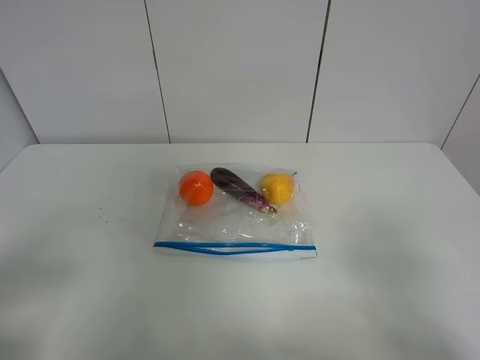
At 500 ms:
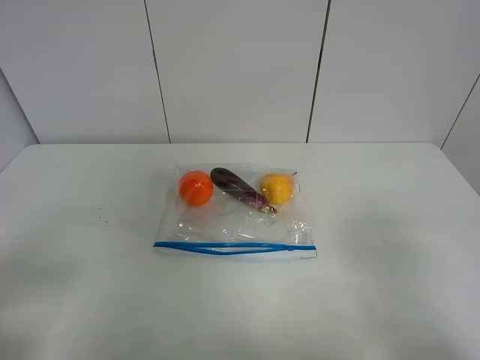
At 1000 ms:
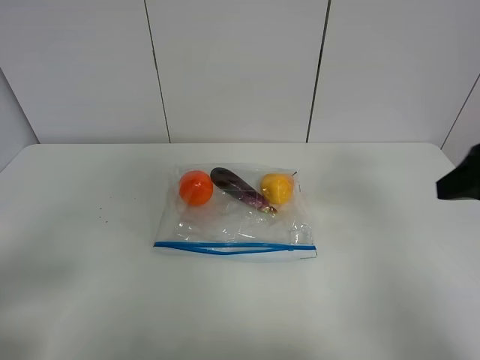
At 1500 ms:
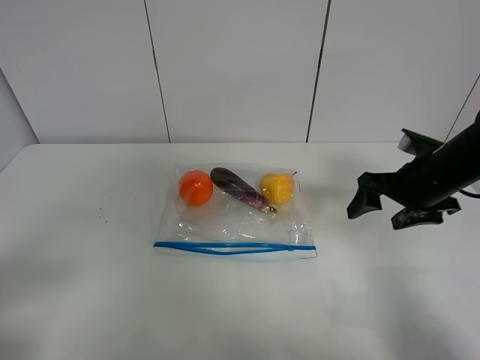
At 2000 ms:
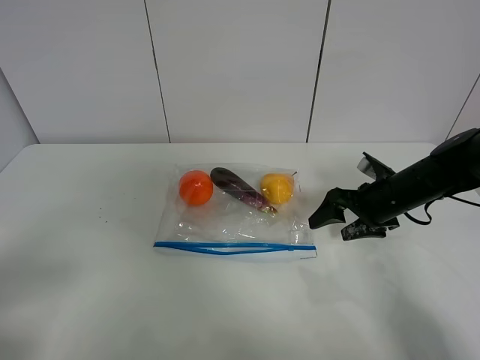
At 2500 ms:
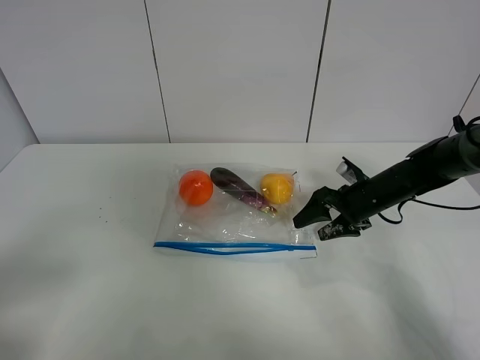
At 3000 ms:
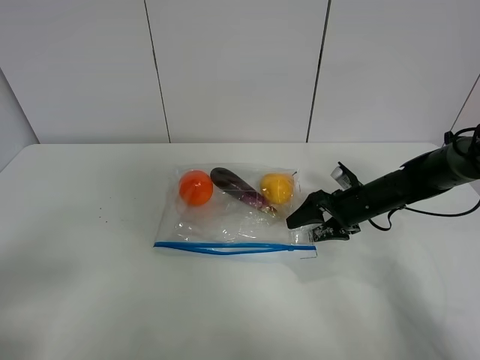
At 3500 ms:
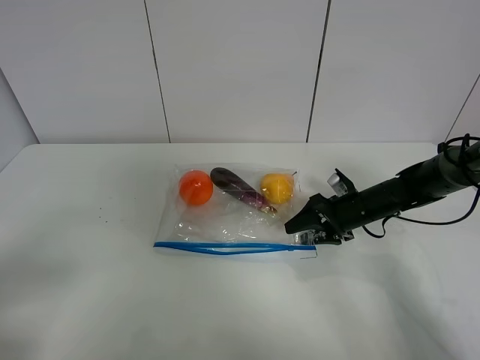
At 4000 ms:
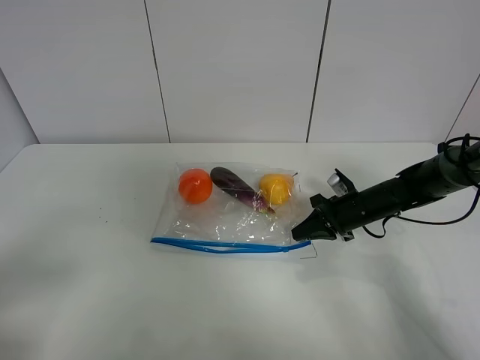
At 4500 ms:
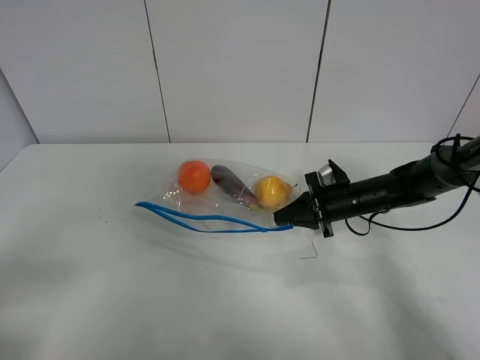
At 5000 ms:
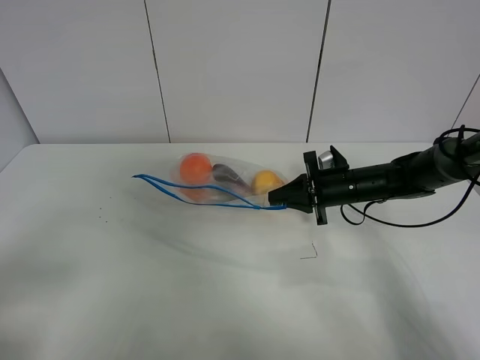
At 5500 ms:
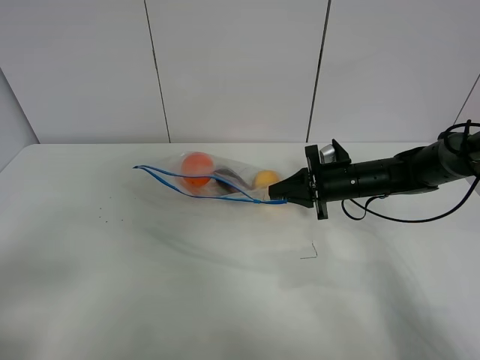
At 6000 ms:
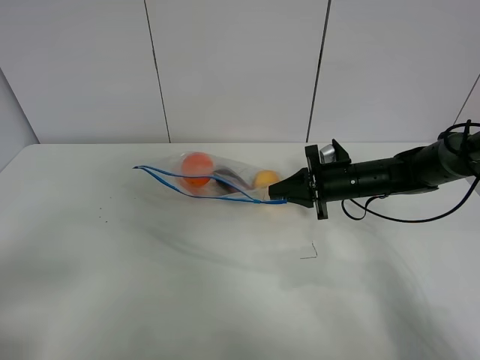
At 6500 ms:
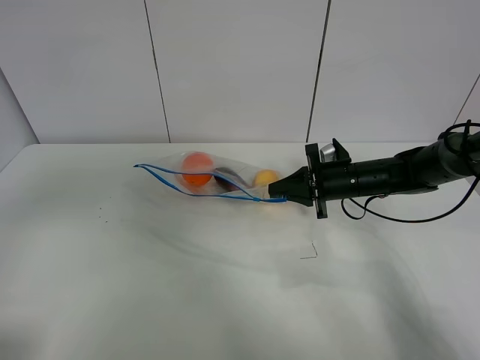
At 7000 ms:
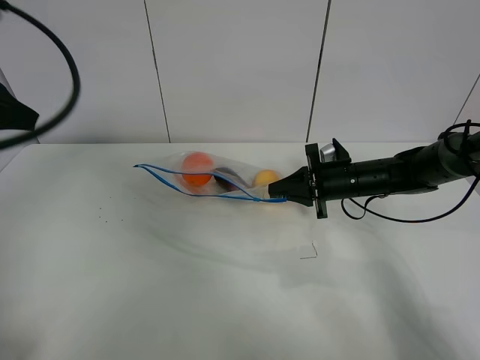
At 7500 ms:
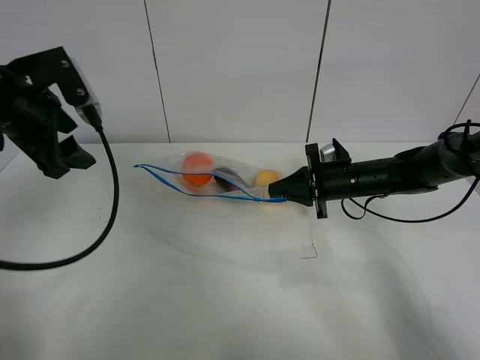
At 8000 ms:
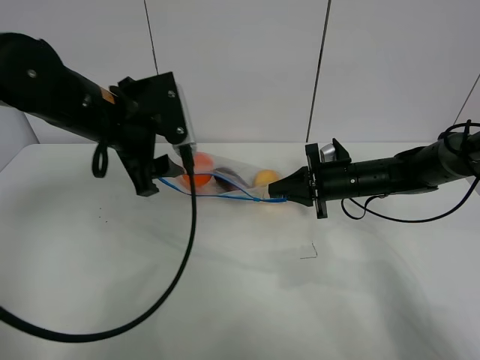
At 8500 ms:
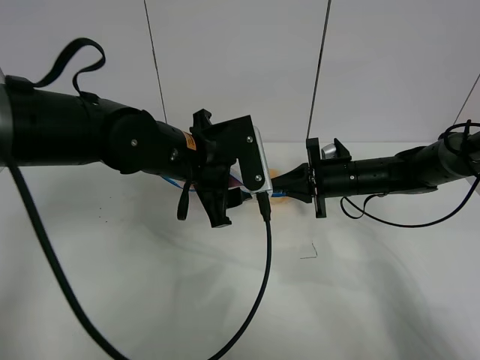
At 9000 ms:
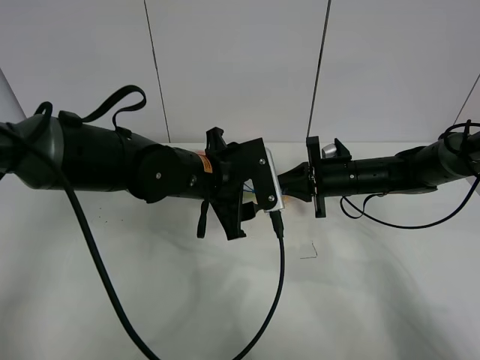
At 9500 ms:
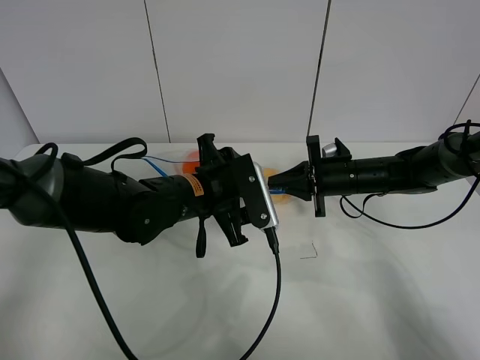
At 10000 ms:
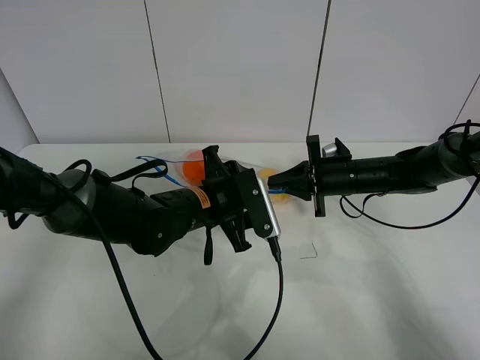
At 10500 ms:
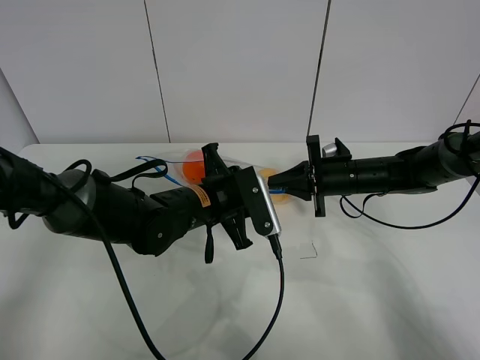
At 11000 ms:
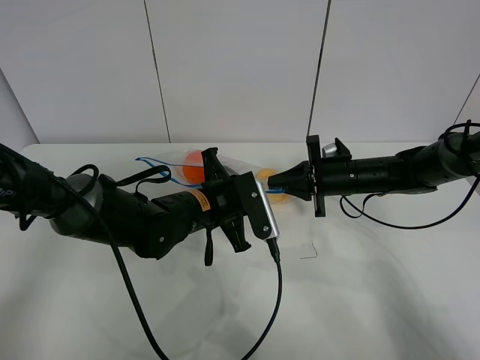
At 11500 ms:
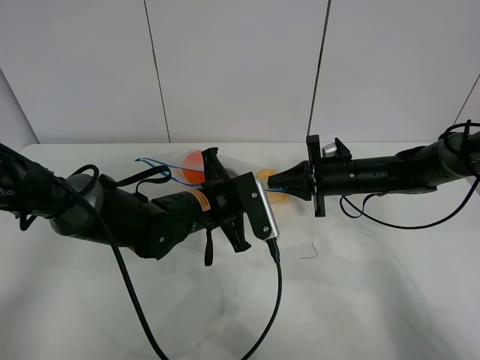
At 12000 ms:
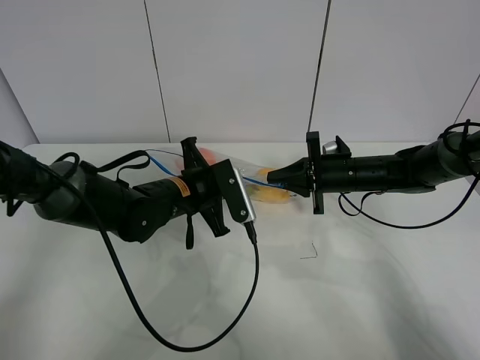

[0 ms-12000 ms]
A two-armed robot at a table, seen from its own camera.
Step, 0 ms to 4000 ms: Grasp the fruit bag with right gripper.
Step, 4500 ms to 5500 ms: Lift the fruit bag with your right gripper.
0 ms to 2000 ms: The right gripper goes approximately 35 cm forward and downward.
2000 ms to 4000 ms: The right gripper shifts about 5 cm downward, and closes its fingers.
4000 ms to 6000 ms: The right gripper is displaced upward by about 5 cm.
6000 ms to 8000 ms: The left gripper shifts some 35 cm forward and to the right.
8000 ms to 10000 ms: The left gripper goes about 15 cm downward and to the right.
10000 ms to 12000 ms: The left gripper shifts by some 5 cm, and closes.

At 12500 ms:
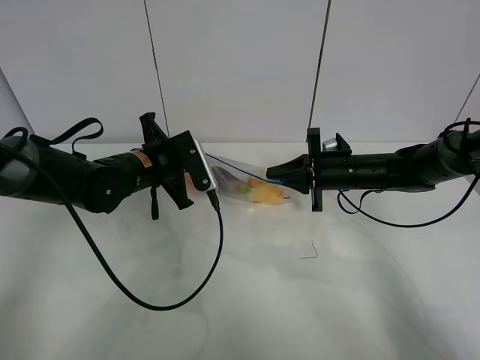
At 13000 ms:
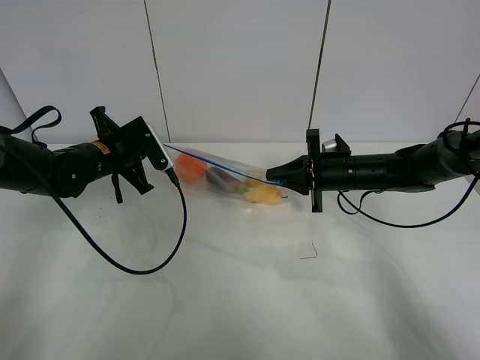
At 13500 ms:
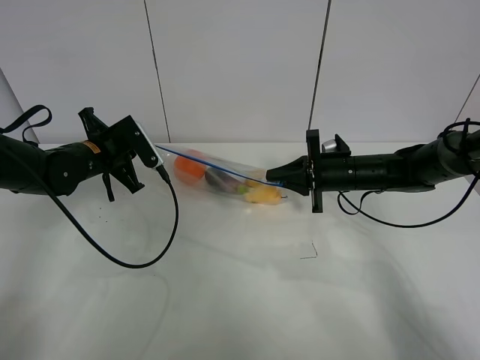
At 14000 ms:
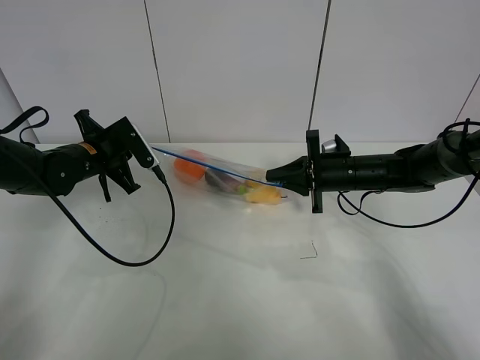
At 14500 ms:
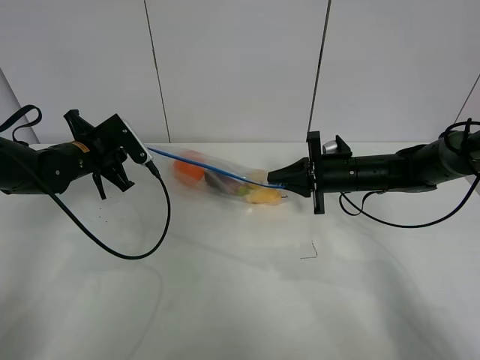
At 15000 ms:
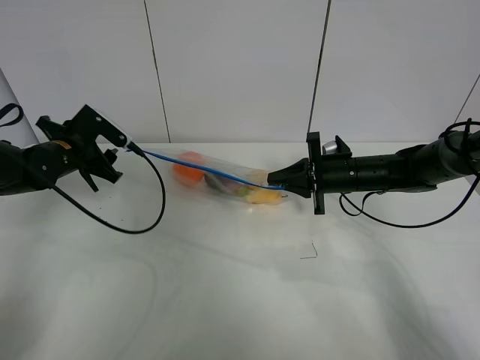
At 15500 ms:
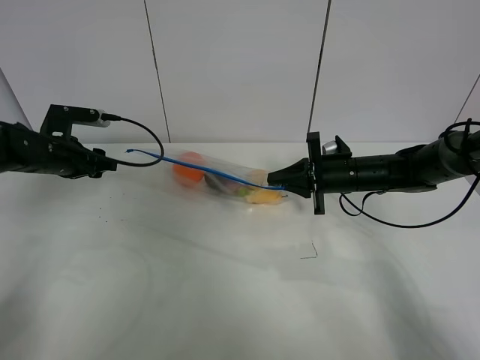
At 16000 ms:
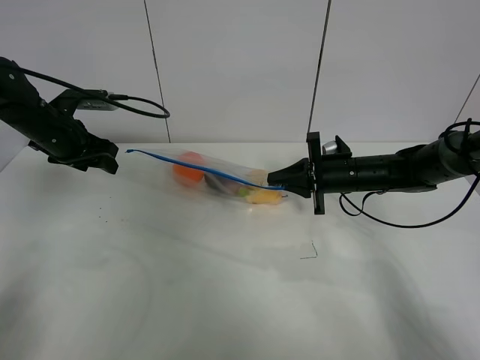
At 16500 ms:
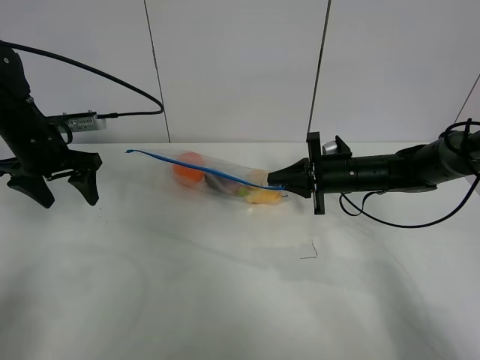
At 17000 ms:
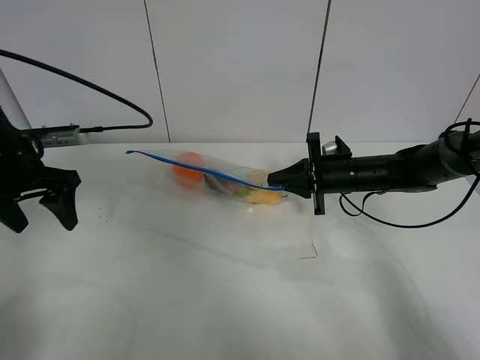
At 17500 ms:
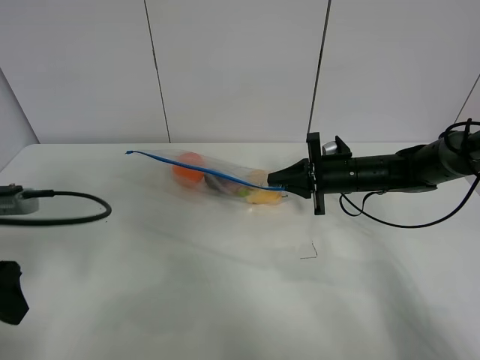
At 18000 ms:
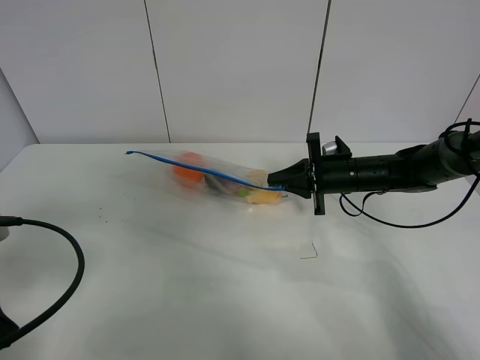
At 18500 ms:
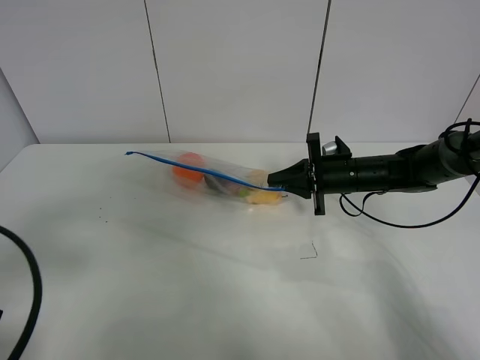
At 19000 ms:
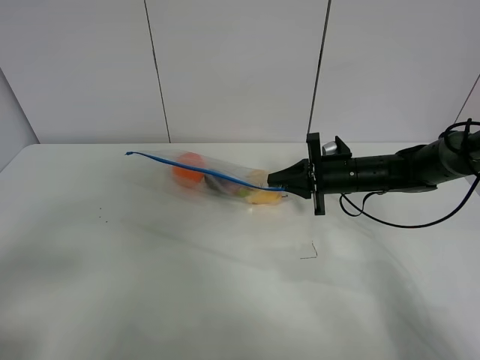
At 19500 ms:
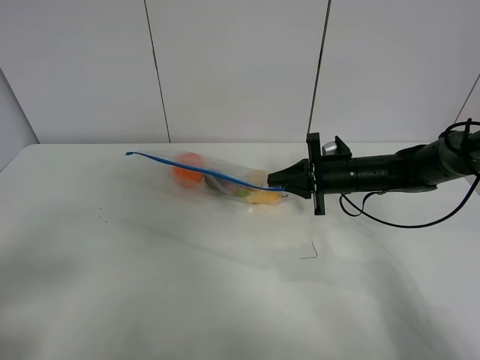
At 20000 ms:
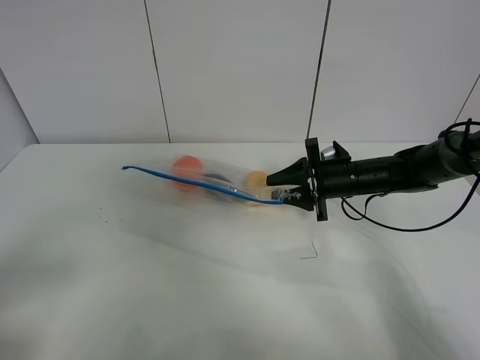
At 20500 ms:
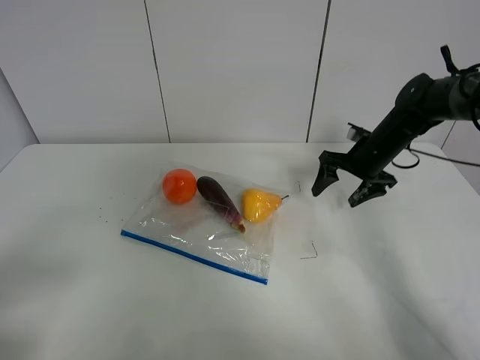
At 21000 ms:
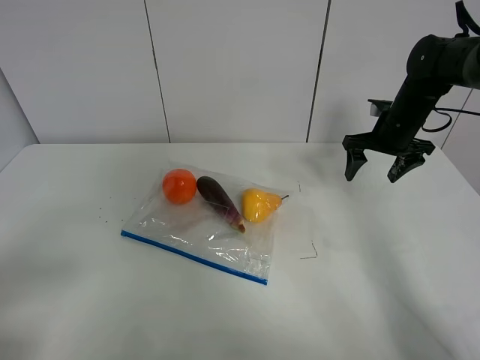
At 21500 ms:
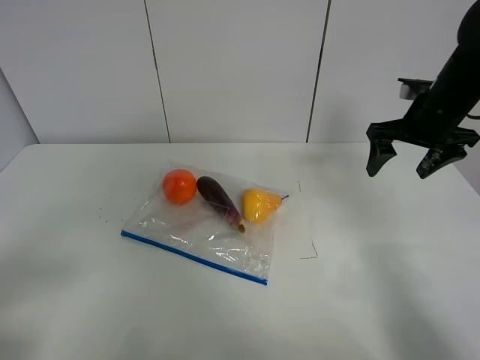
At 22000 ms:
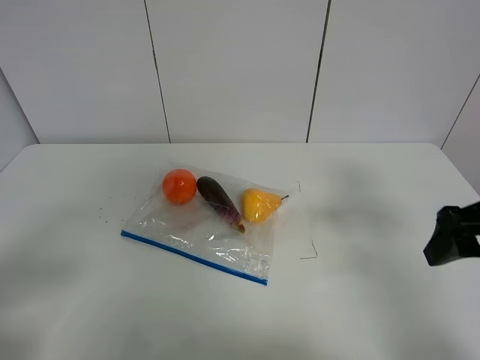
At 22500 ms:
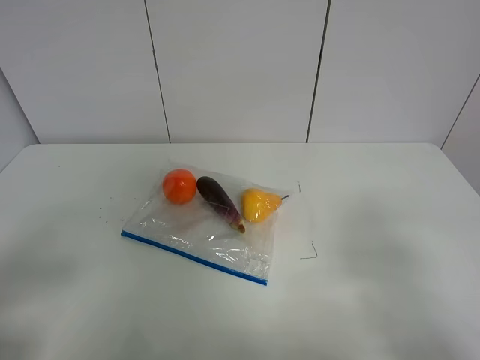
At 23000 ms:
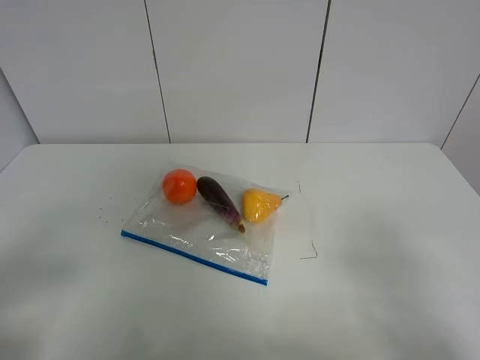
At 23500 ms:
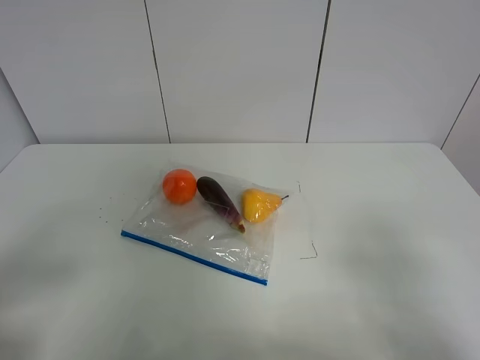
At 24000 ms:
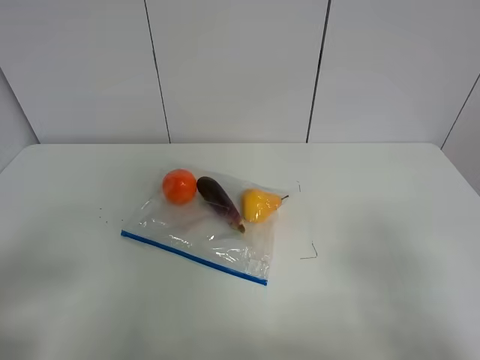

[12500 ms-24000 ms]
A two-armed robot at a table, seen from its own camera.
Step, 12500 ms to 14500 ms: Pull the fruit bag with left gripper.
12500 ms to 14500 ms: The left gripper shifts about 10 cm to the left, and opens.
14500 ms to 16500 ms: The left gripper travels to the left by roughly 5 cm, and opens up.
16500 ms to 18500 ms: The left gripper shifts about 30 cm backward.
18500 ms to 20000 ms: The left gripper heads backward, covering some 5 cm; the right gripper opens.
20000 ms to 22000 ms: The right gripper goes roughly 25 cm backward, upward and to the right, and opens.
22000 ms to 24000 ms: The right gripper moves backward, approximately 15 cm.

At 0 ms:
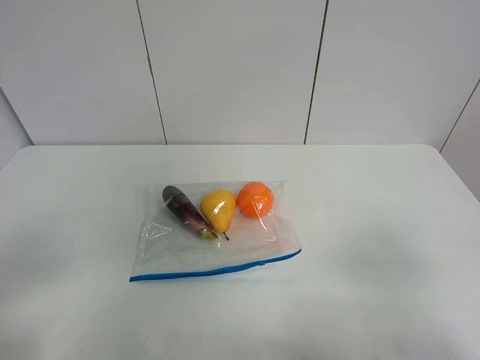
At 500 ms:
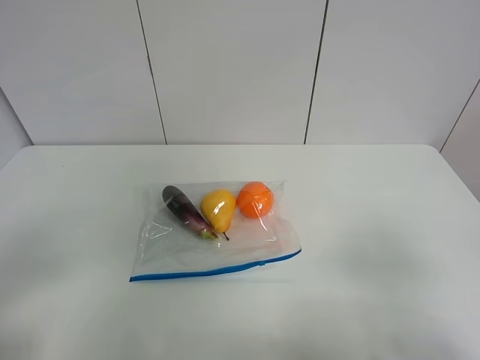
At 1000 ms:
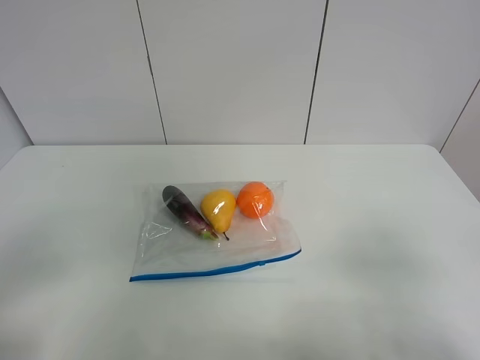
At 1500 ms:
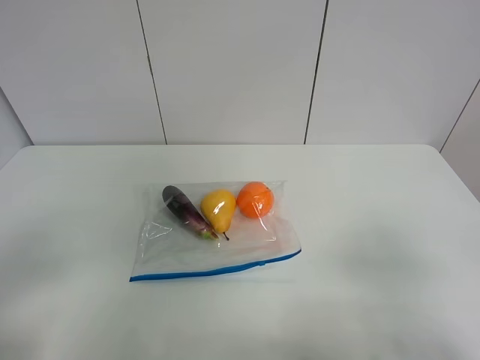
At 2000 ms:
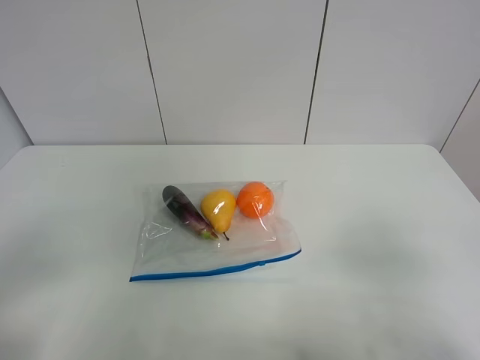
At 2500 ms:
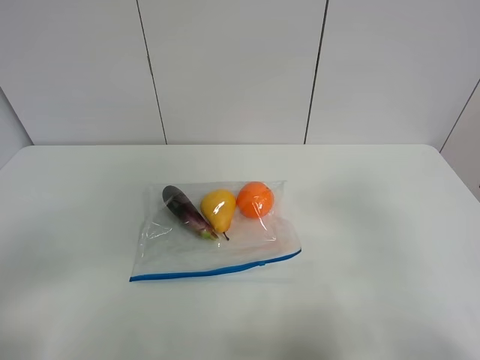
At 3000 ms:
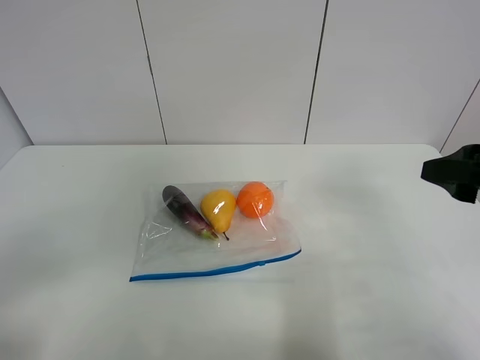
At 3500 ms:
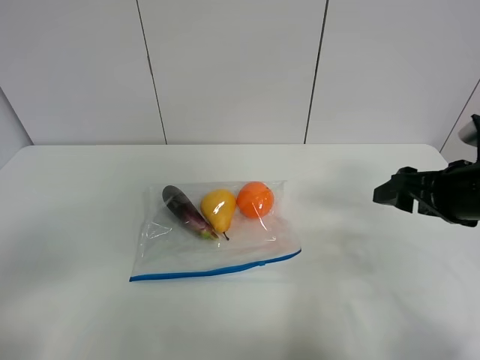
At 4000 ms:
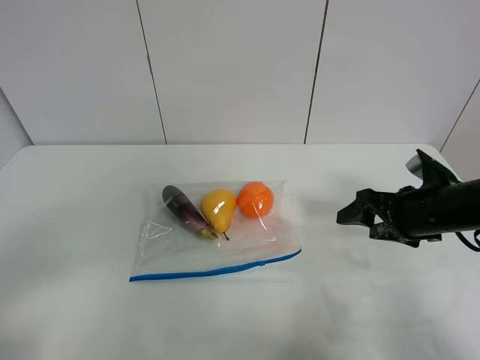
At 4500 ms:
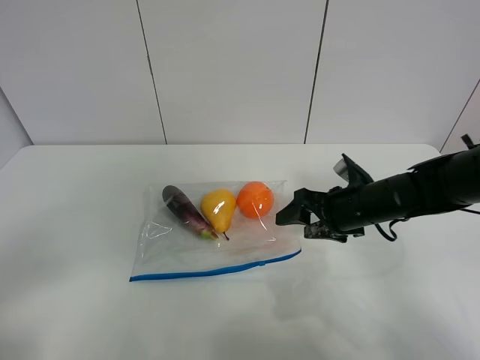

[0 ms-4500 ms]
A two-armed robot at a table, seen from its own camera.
2000 ms to 4500 ms: The right gripper travels forward and downward by about 35 cm.
